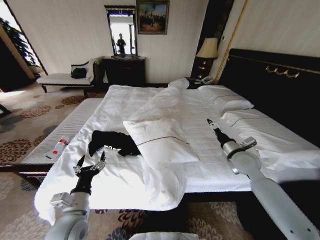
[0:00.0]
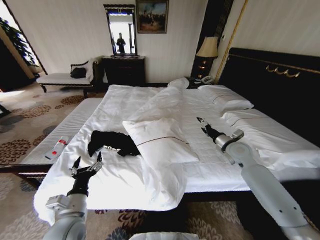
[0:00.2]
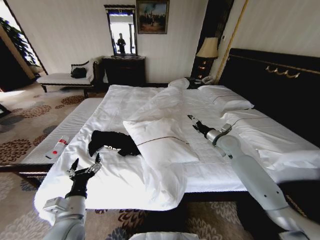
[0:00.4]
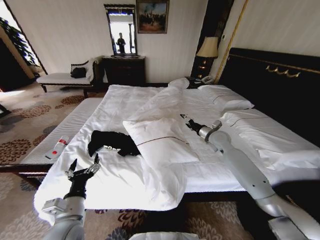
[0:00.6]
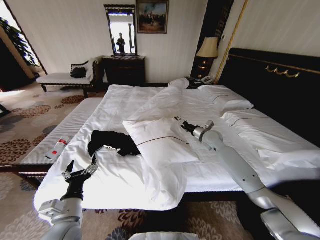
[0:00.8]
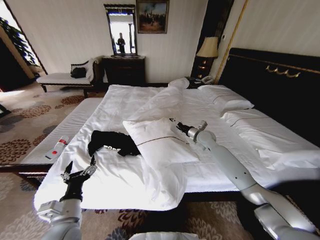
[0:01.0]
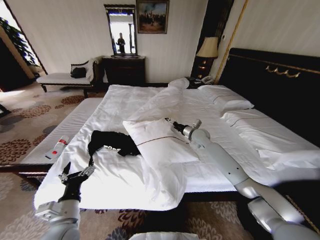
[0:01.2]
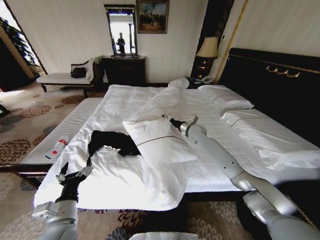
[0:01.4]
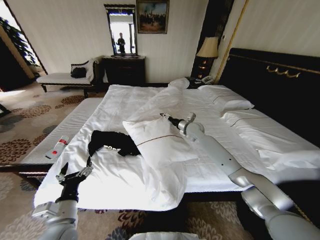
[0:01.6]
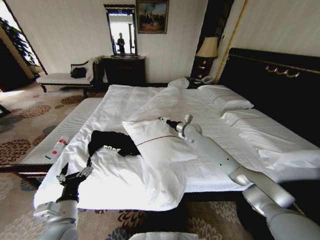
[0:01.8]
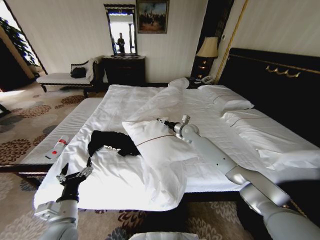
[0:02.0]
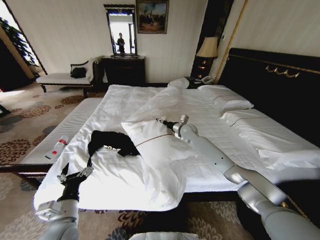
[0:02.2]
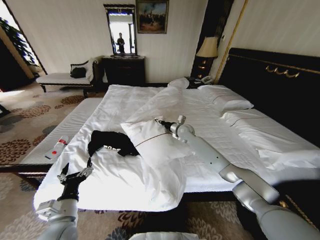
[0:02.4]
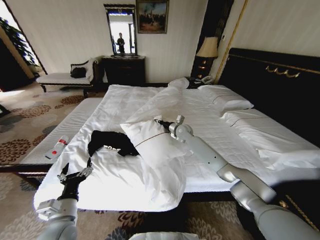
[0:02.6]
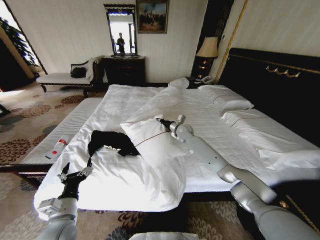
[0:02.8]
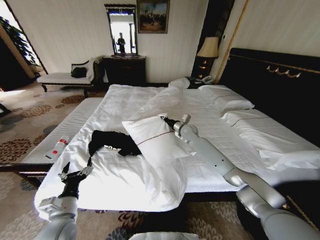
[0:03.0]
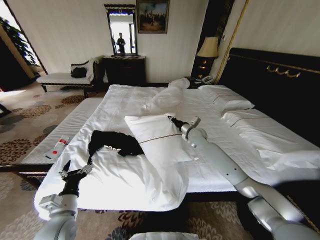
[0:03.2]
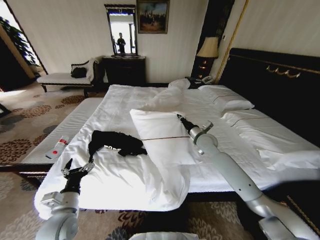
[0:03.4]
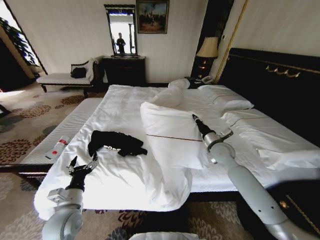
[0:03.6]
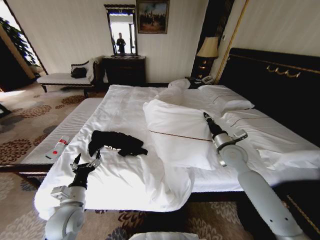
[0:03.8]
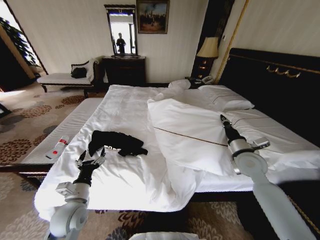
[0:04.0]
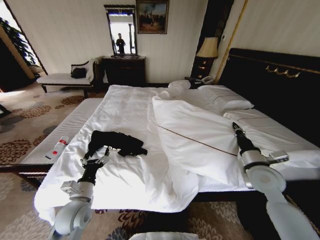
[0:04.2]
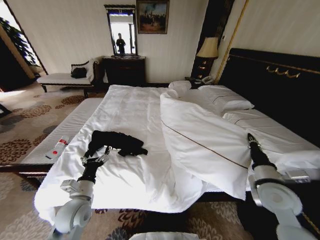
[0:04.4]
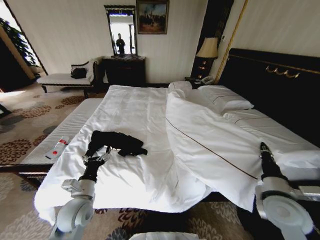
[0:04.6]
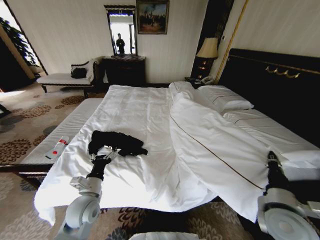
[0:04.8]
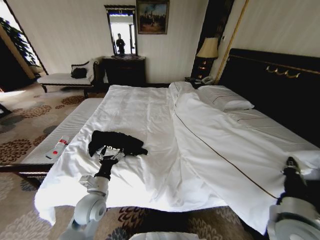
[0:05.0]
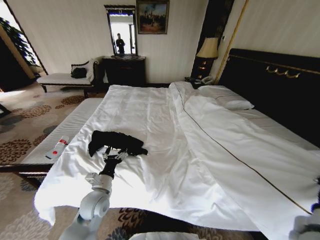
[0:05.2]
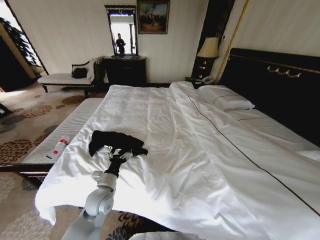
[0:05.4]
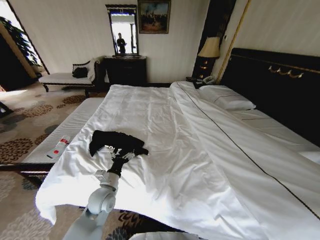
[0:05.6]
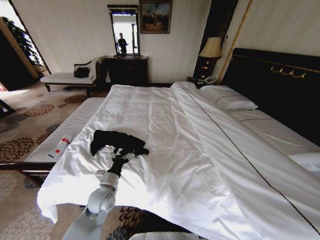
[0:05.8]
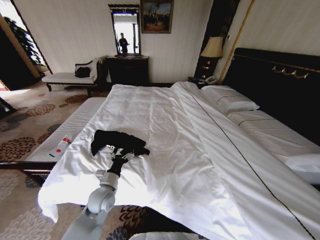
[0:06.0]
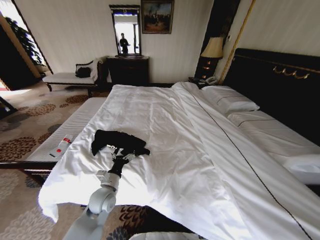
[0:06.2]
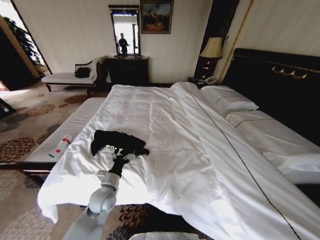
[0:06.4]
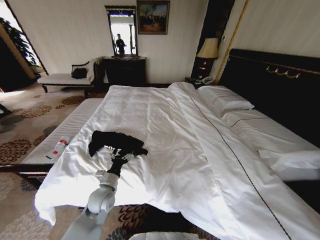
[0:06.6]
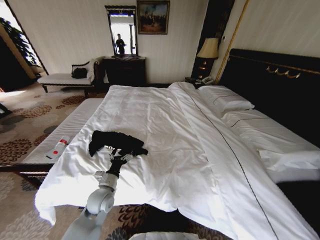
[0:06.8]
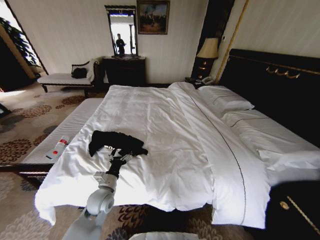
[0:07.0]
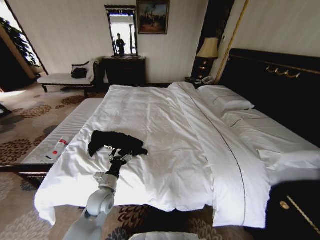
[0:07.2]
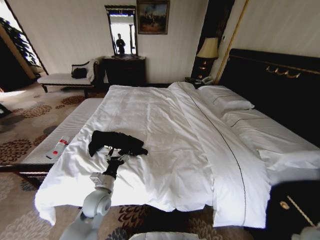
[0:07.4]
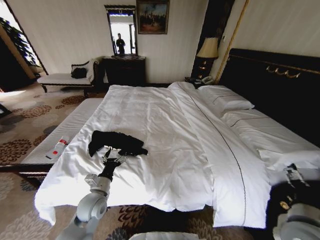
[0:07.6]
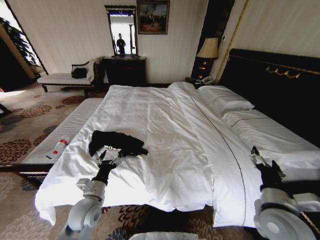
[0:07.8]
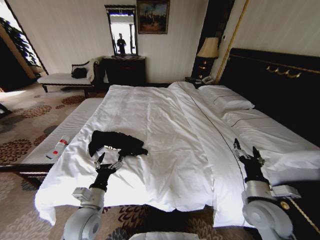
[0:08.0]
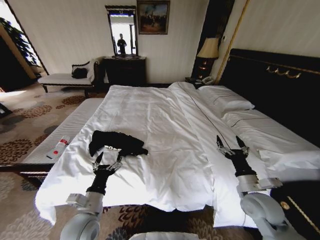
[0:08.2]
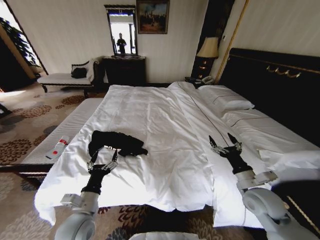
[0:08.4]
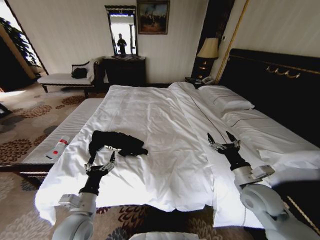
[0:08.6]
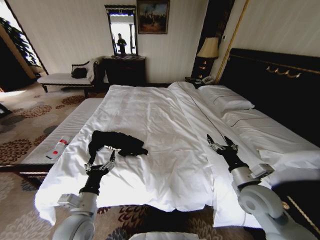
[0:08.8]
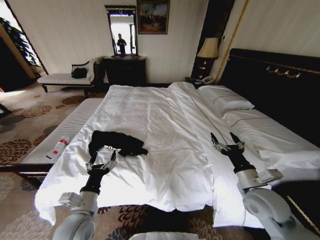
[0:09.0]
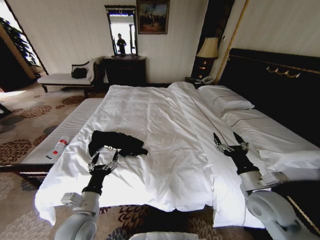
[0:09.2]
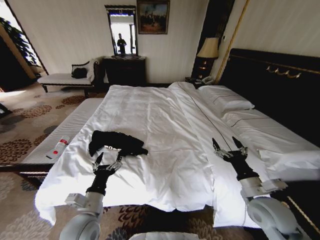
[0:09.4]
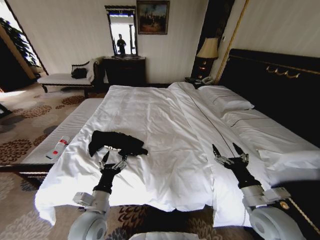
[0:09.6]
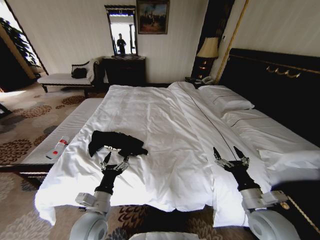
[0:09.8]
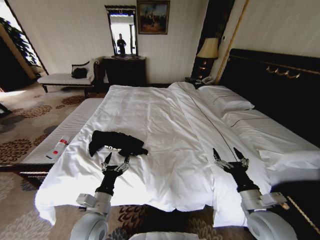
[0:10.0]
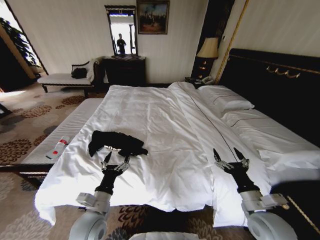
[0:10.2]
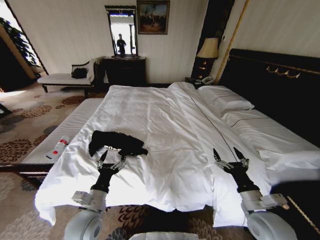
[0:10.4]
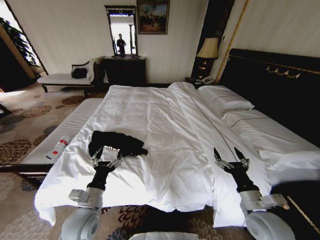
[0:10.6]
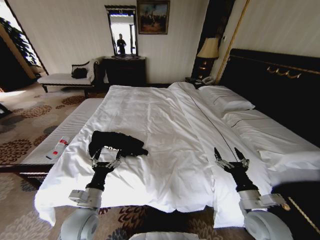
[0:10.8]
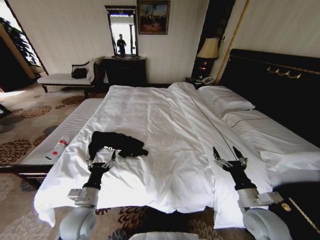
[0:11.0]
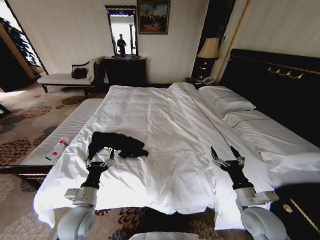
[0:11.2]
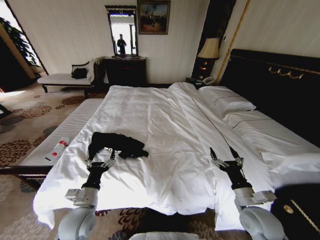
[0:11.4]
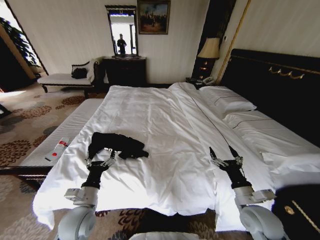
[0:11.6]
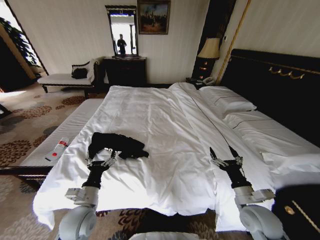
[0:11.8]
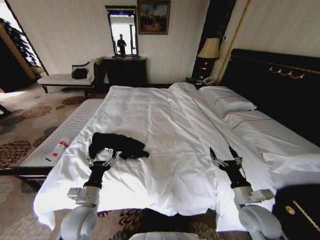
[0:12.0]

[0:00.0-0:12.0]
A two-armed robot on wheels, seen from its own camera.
Task of the whole recording: Fold the clothes on the bed.
0:00.0 to 0:01.6: The right gripper goes roughly 25 cm forward and to the left.
0:01.6 to 0:03.0: The right gripper closes.
0:03.0 to 0:04.4: The left gripper is displaced forward by approximately 5 cm. Meanwhile the right gripper shifts approximately 40 cm backward and to the right.
0:04.4 to 0:06.0: The left gripper shifts approximately 10 cm to the right and forward. The right gripper moves backward, roughly 20 cm.
0:06.0 to 0:07.6: The right gripper moves up and down over approximately 15 cm, changing direction 2 times, and opens up.
0:07.6 to 0:09.0: The right gripper goes some 10 cm forward. Meanwhile the left gripper heads backward, covering about 10 cm.
0:09.0 to 0:10.4: The right gripper is displaced backward by roughly 5 cm.
0:10.4 to 0:12.0: The grippers move only a little.

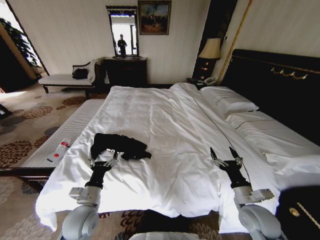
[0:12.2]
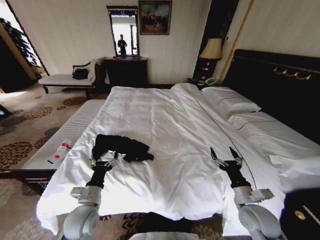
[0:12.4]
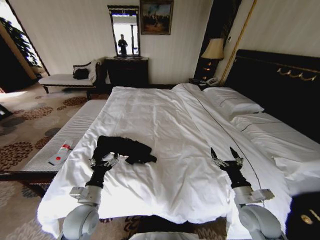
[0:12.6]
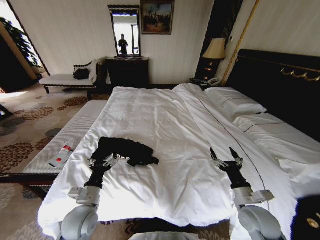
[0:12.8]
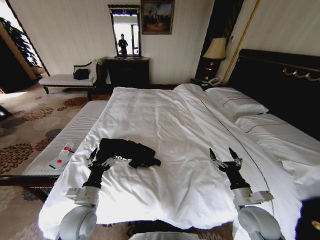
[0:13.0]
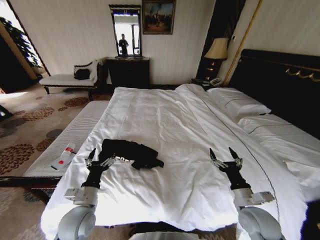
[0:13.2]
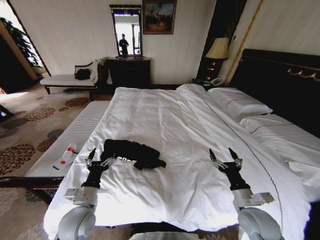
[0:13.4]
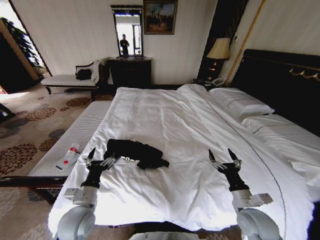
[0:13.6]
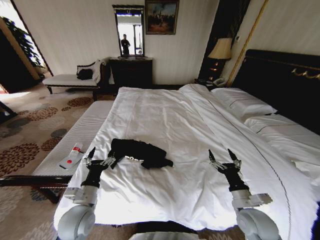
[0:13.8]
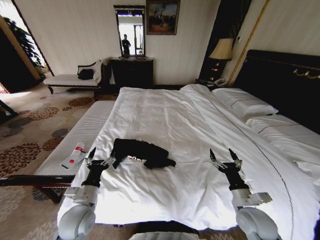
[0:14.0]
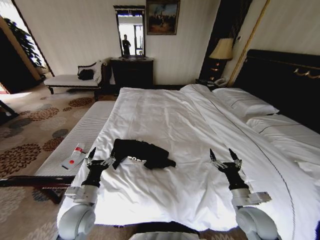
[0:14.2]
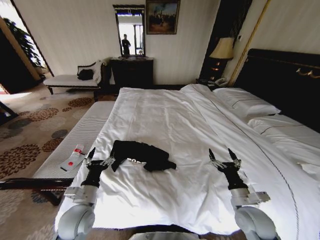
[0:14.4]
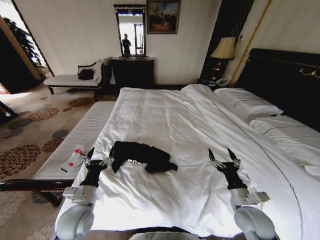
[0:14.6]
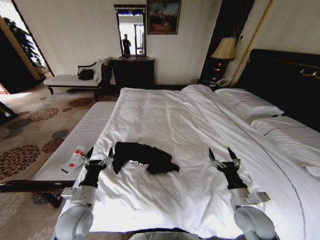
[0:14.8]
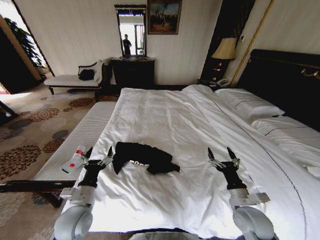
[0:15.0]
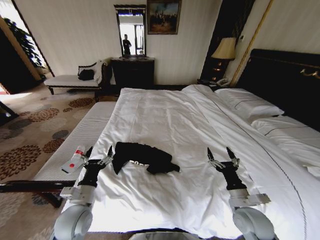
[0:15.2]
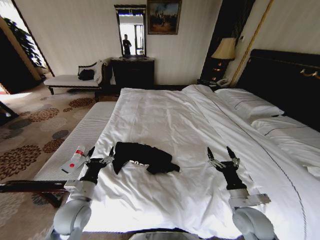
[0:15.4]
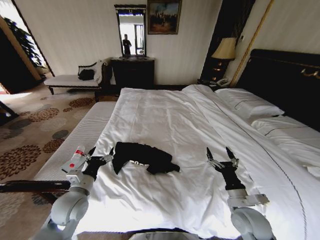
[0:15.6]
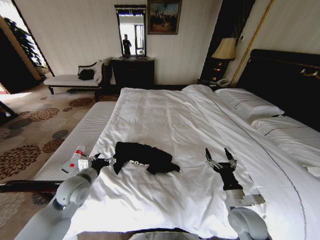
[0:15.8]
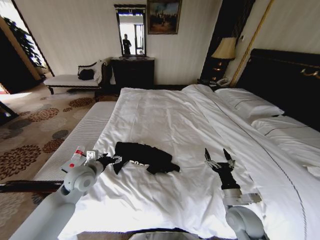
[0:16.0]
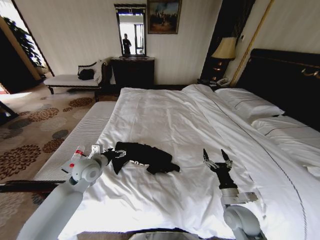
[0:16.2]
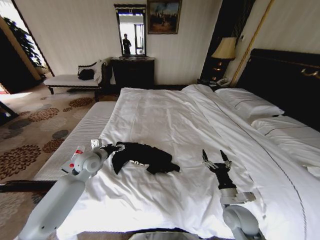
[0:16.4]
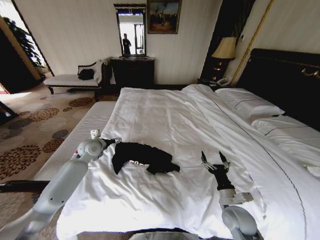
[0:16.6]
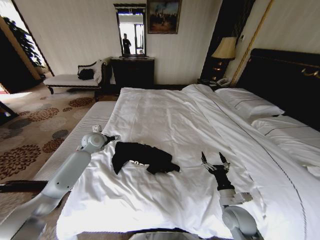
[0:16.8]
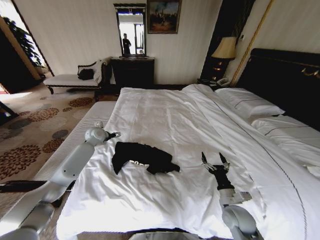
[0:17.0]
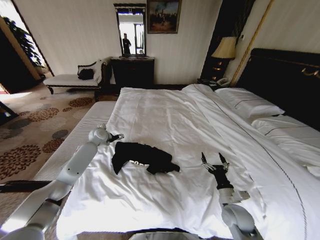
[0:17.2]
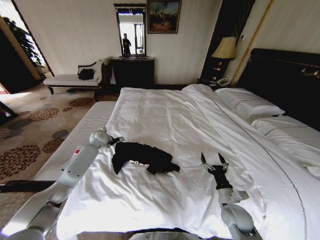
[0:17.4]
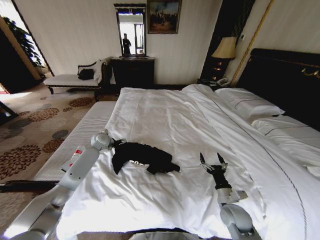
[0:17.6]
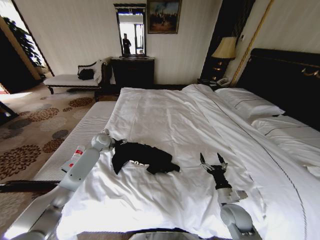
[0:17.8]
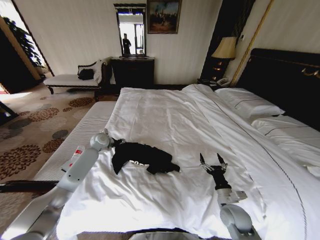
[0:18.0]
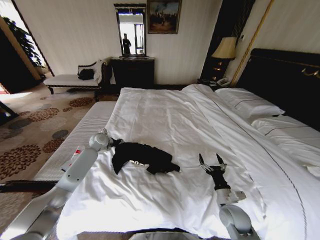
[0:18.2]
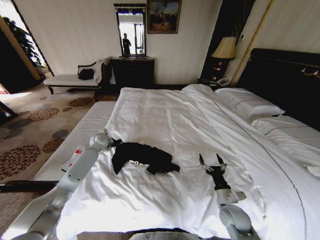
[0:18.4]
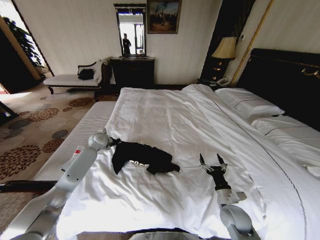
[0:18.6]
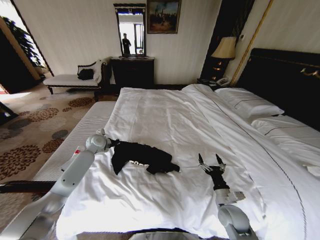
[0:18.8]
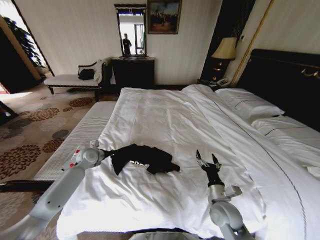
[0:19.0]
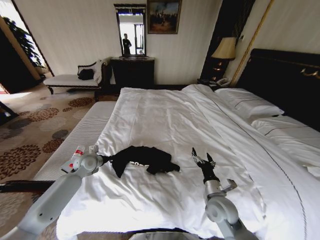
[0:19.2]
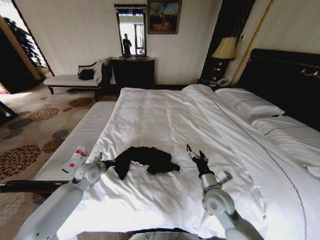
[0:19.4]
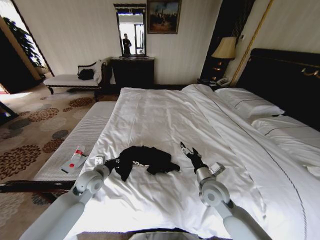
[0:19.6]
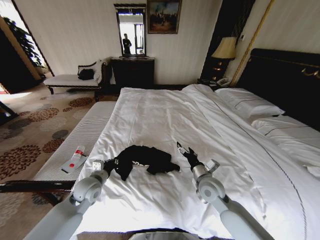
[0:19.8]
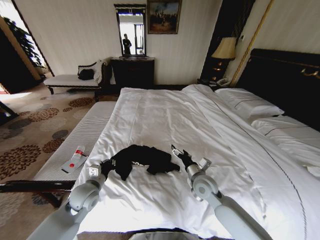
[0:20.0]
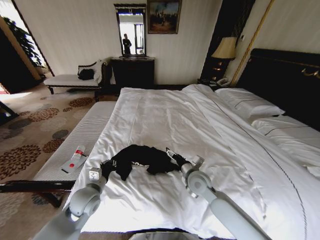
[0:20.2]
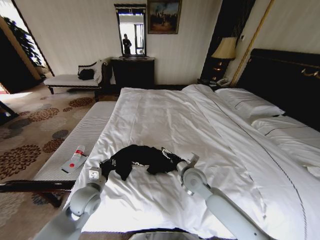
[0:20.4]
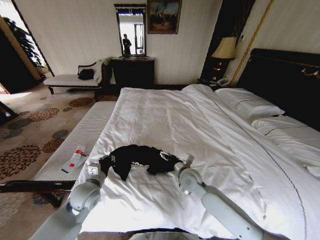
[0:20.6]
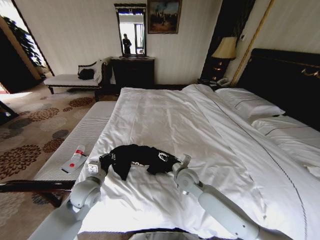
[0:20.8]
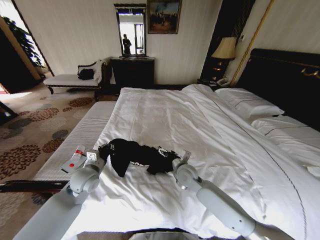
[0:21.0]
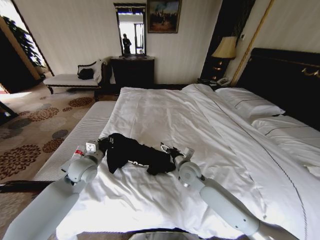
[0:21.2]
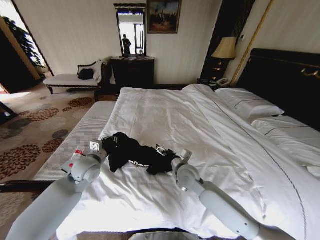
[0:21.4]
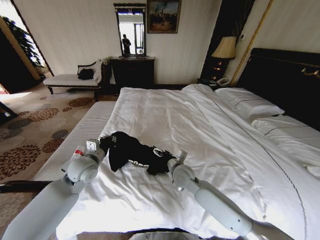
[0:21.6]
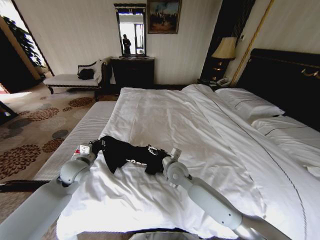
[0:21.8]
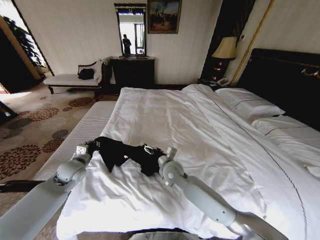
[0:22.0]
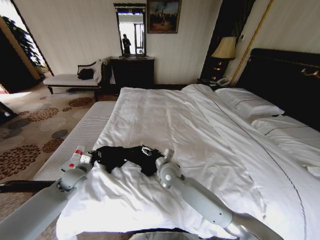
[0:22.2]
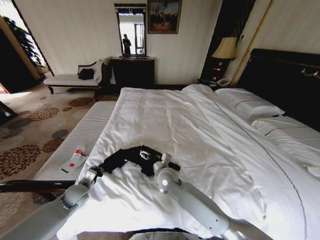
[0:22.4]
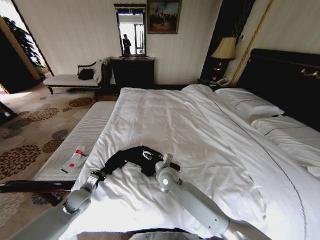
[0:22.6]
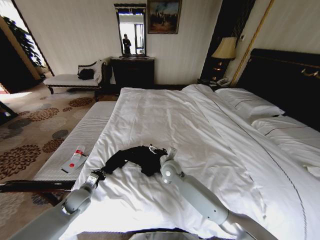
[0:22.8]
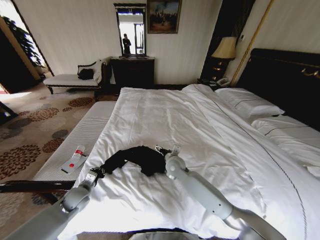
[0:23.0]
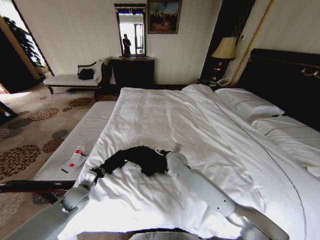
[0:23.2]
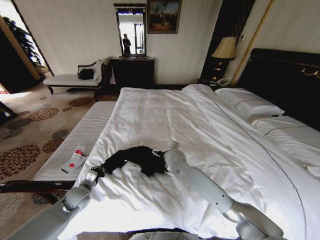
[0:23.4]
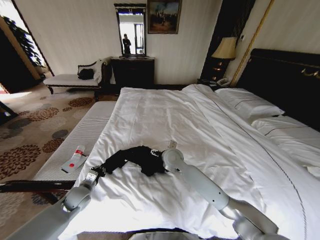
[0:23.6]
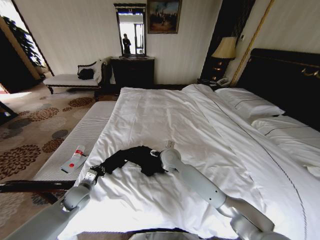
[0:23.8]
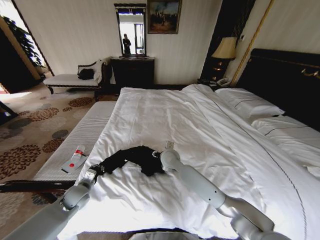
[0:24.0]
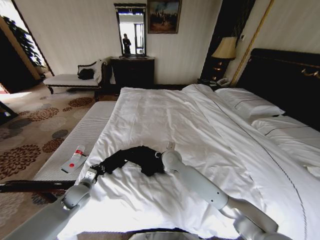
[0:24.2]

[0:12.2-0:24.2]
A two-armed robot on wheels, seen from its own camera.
Task of the whole recording: Fold the clothes on the bed.
0:15.2 to 0:16.6: The left gripper heads forward, covering some 25 cm.
0:16.6 to 0:18.2: The left gripper travels forward by roughly 10 cm, and closes up.
0:18.2 to 0:19.8: The right gripper shifts some 15 cm to the left, upward and forward. The left gripper shifts about 25 cm backward, and closes.
0:19.8 to 0:21.2: The right gripper is displaced to the left and forward by roughly 10 cm; the left gripper shifts approximately 5 cm upward.
0:21.2 to 0:22.6: The left gripper goes about 15 cm downward. Meanwhile the right gripper travels to the left by approximately 10 cm.
0:22.6 to 0:24.2: The right gripper shifts roughly 5 cm forward, and closes.
